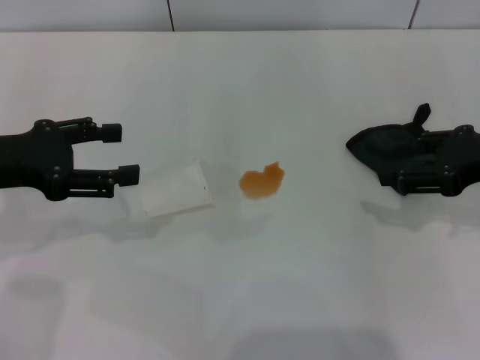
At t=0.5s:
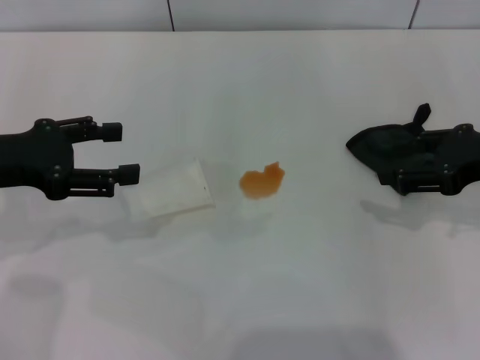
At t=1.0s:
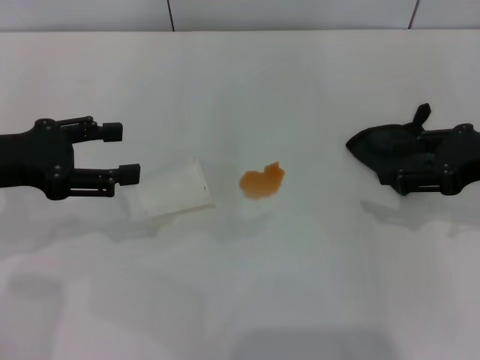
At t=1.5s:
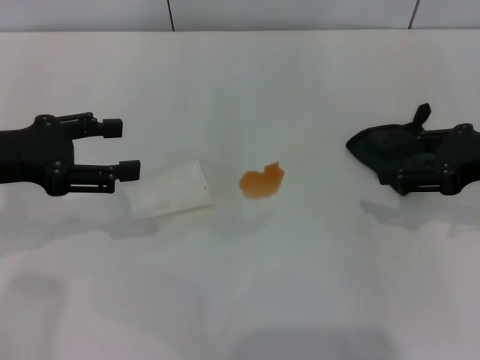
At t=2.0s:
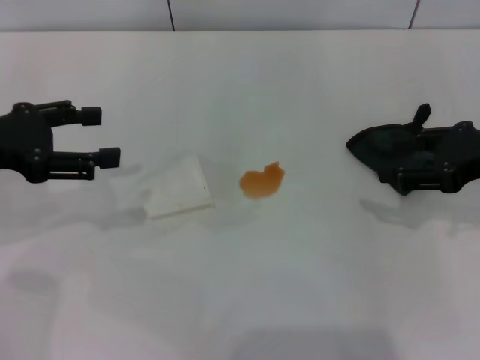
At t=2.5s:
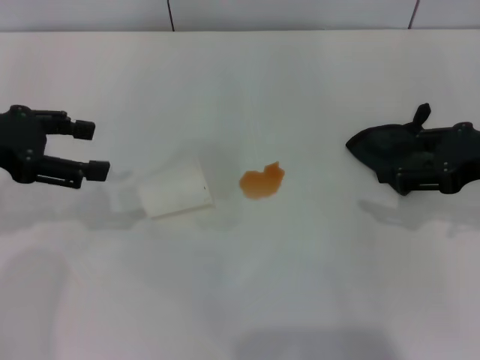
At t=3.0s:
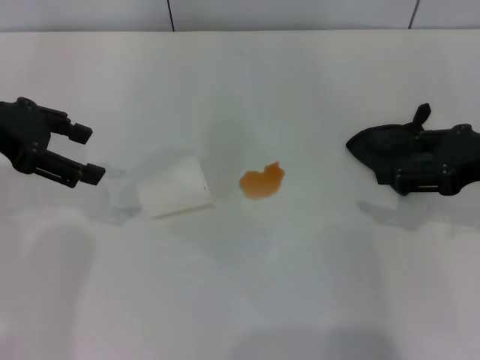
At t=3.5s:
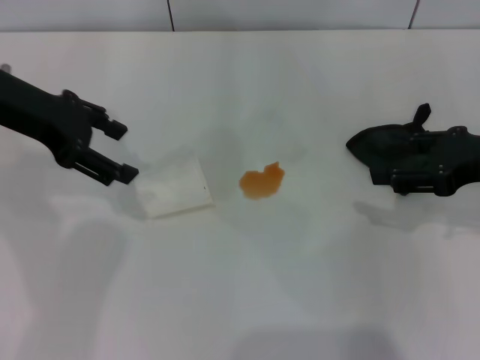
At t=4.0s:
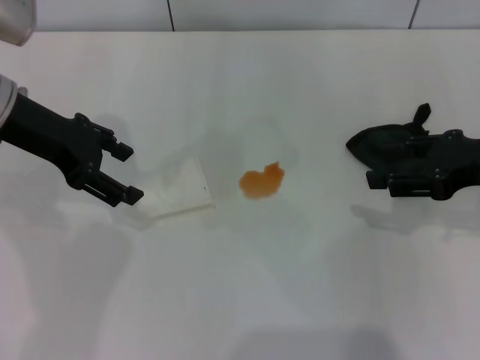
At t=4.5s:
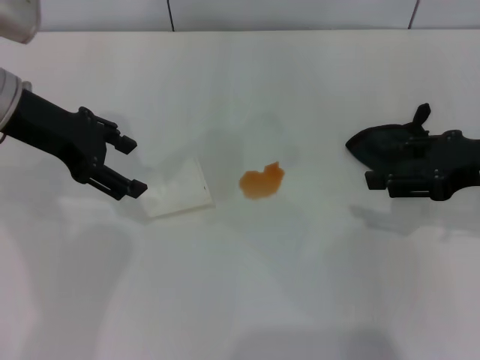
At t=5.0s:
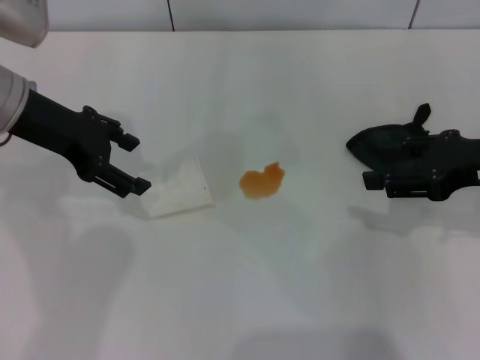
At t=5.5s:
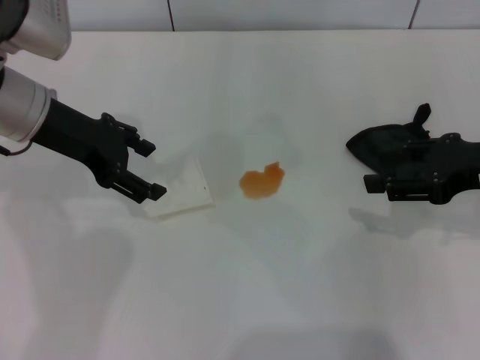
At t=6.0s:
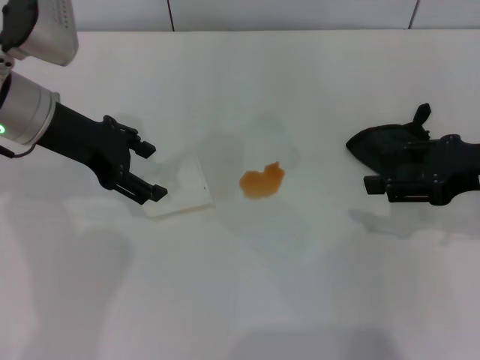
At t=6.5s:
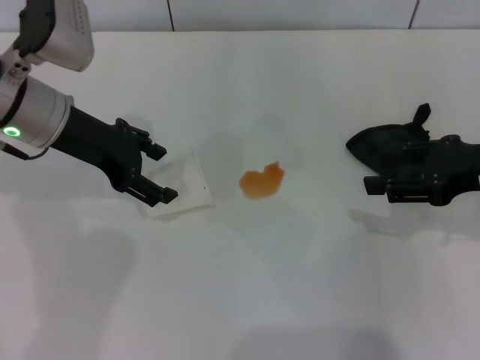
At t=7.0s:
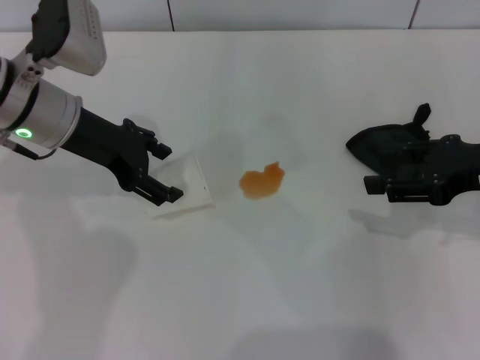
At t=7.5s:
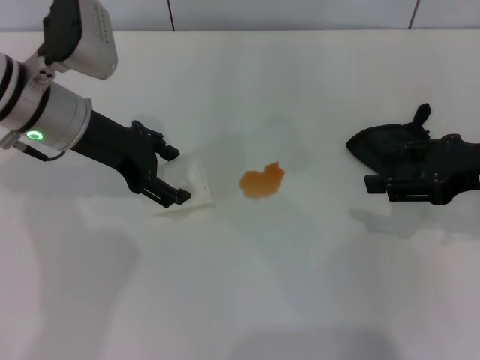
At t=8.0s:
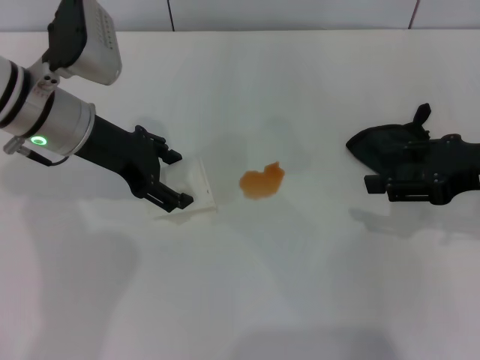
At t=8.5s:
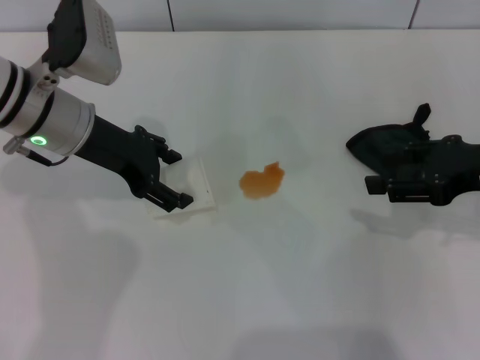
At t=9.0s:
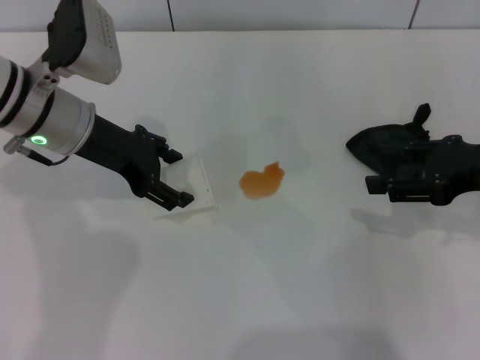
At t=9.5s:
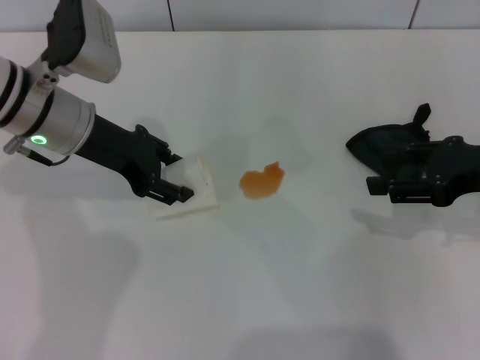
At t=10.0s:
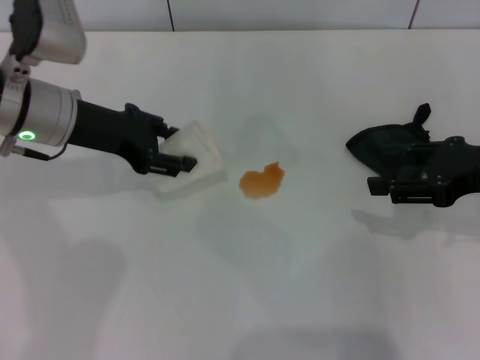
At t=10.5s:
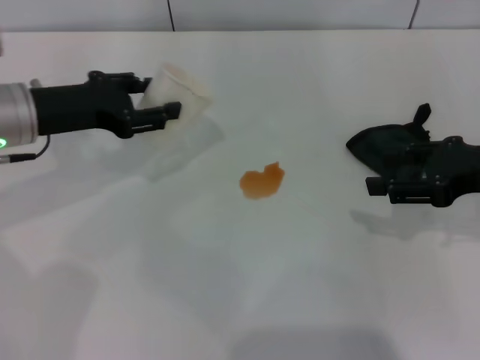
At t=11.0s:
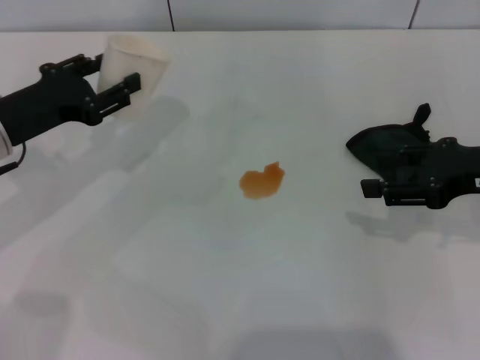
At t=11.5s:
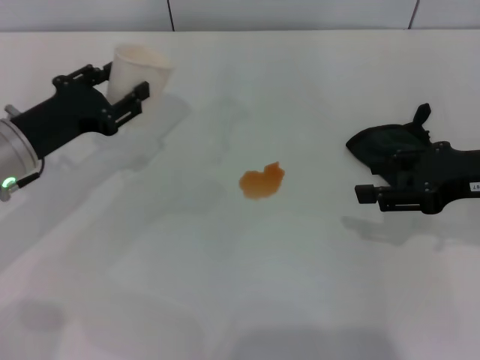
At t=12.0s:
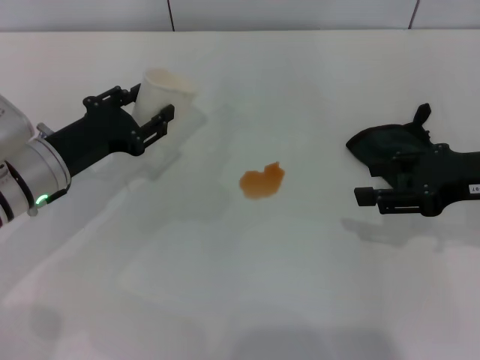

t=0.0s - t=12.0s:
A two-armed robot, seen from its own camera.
Step, t=0.0s - t=9.0s: Grasp the paper cup with the left gripper.
t=0.0s - t=2.0s: The grippers move only a little.
t=2.0s - t=4.0s: The left gripper shifts some 10 cm to the right and forward.
t=4.0s - t=6.0s: The grippers move only a little.
t=6.0s - t=8.0s: The grippers make only small movements.
t=8.0s - t=10.0s: The left gripper closes.
t=10.0s - t=12.0s: The left gripper goes about 10 cm downward and backward.

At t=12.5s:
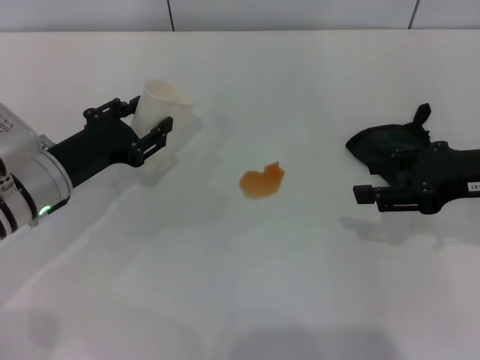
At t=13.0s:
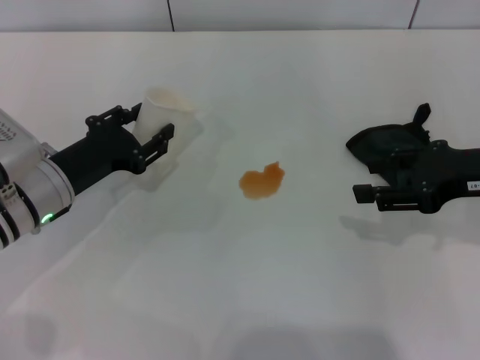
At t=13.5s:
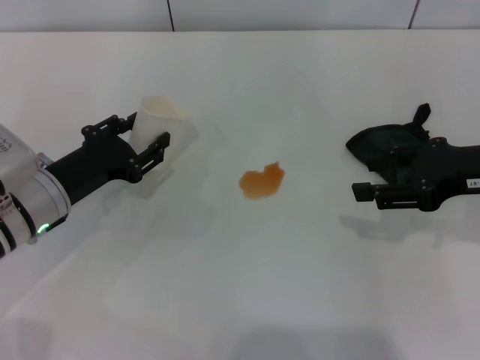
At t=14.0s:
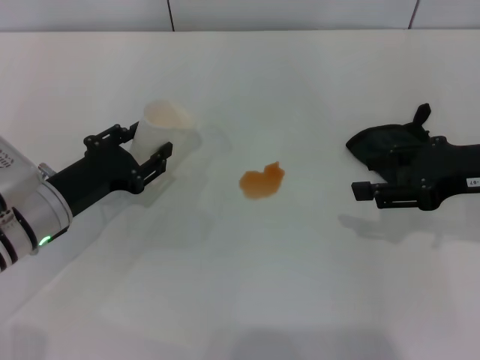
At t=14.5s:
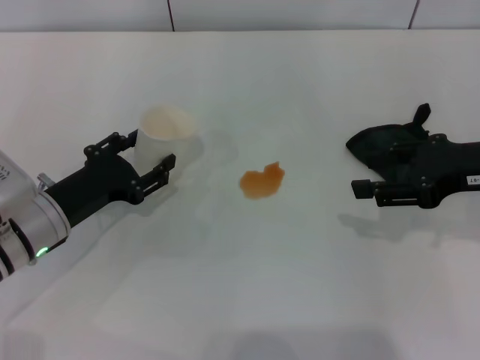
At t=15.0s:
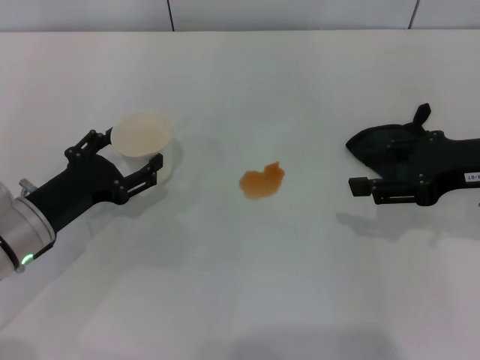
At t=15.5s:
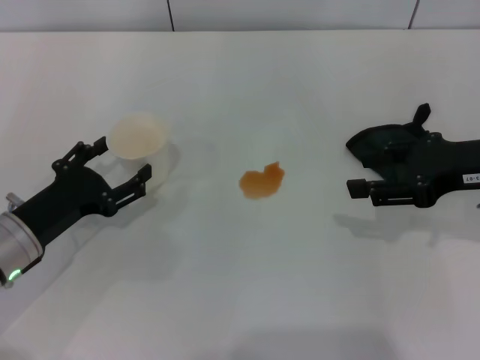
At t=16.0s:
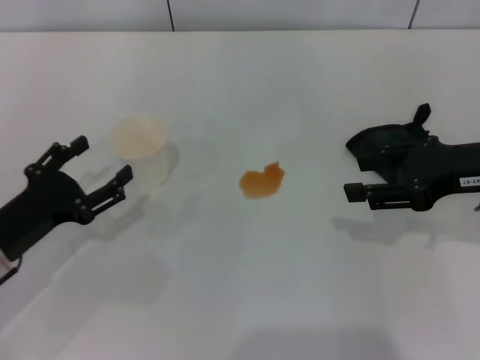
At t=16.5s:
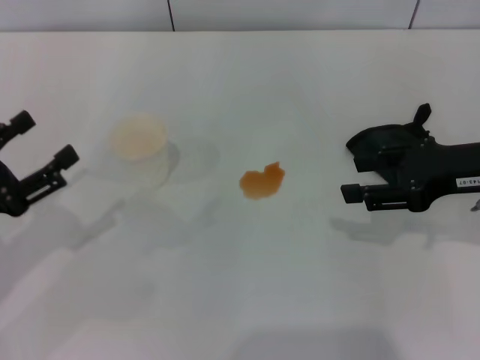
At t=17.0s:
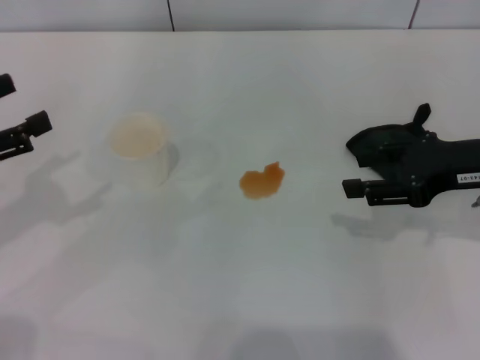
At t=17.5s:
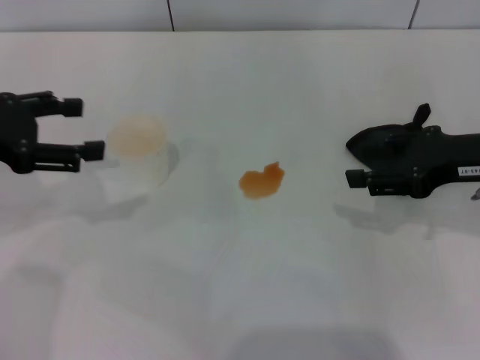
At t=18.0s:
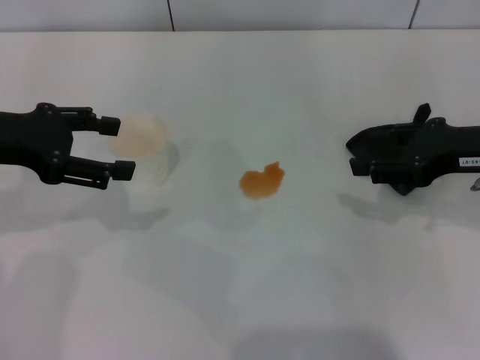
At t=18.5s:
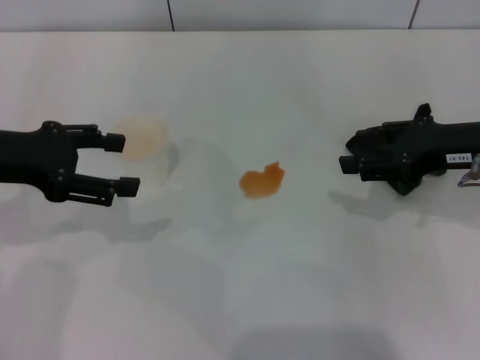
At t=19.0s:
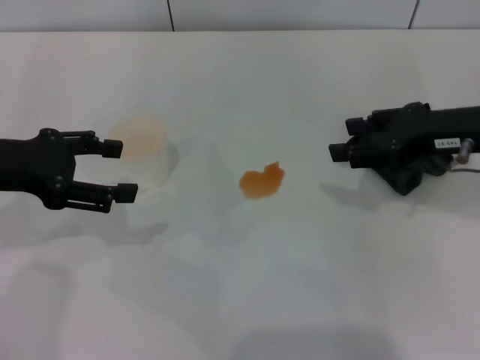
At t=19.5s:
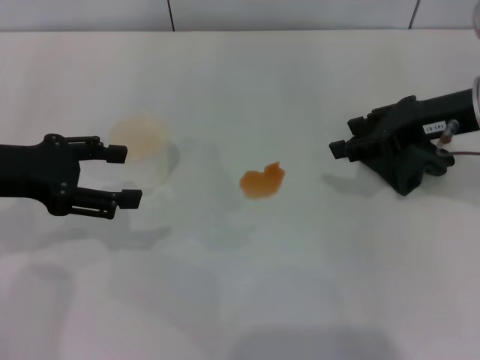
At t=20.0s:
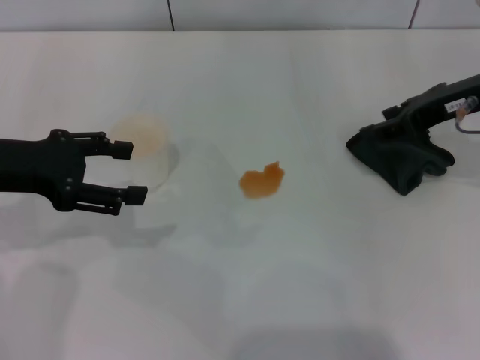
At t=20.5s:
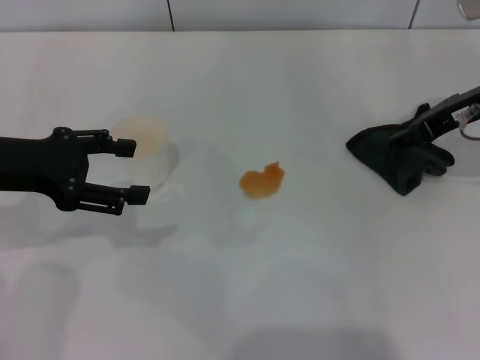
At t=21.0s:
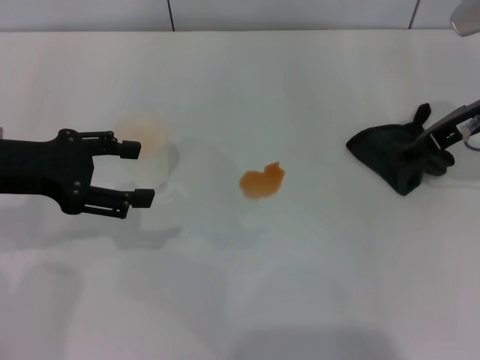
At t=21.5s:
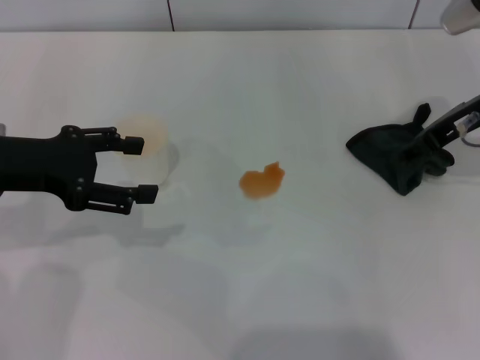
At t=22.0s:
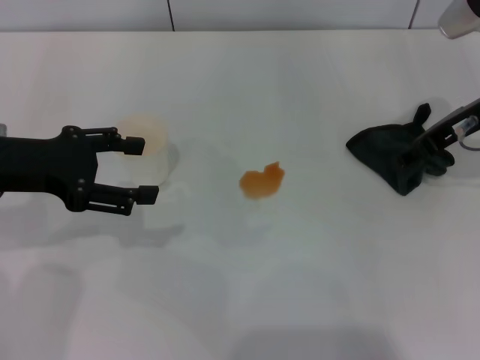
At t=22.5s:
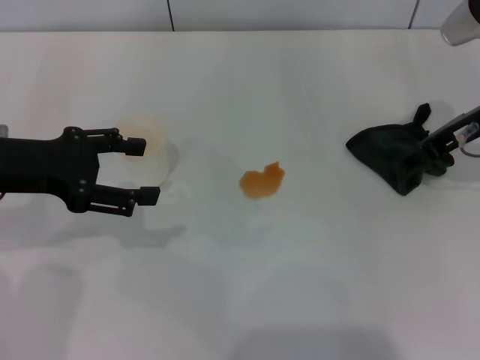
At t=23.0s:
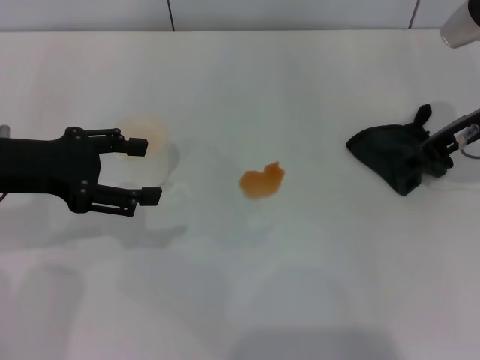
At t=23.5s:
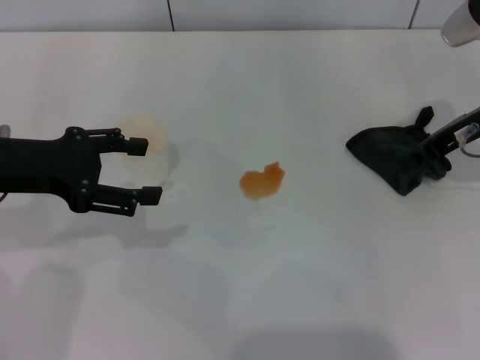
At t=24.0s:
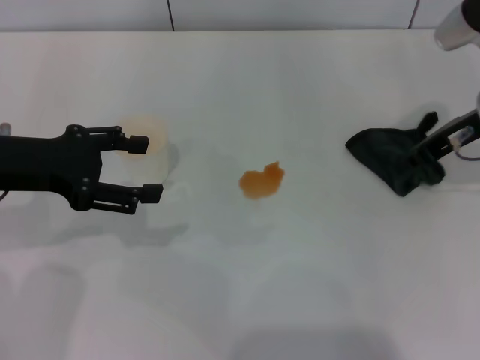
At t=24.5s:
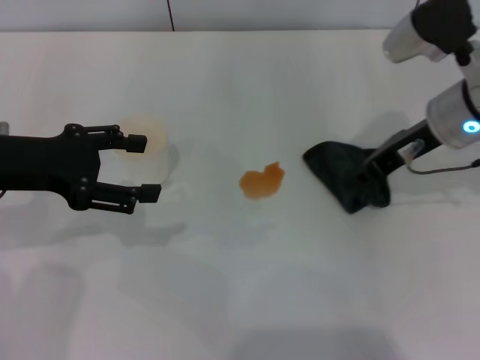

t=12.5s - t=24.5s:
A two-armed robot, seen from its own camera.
Step, t=12.5s - t=16.0s: Stand the paper cup upright with the left gripper.
Step, t=16.5s - t=24.0s: Grasp the rag with the right gripper.
t=12.5s - t=14.5s: The grippers move only a little.
t=14.5s - t=16.5s: The left gripper goes approximately 10 cm to the left, backward and upward, and opens.
t=16.5s - t=18.5s: The left gripper is displaced forward and upward by approximately 10 cm.
t=18.5s - t=20.5s: The right gripper moves forward, some 5 cm.
t=20.5s - t=22.5s: The grippers move only a little.
t=22.5s - t=24.5s: The right gripper shifts about 5 cm to the left, and closes its fingers.

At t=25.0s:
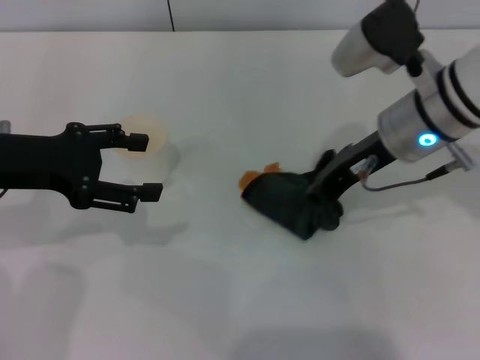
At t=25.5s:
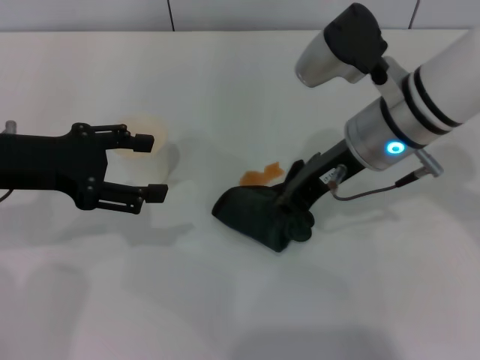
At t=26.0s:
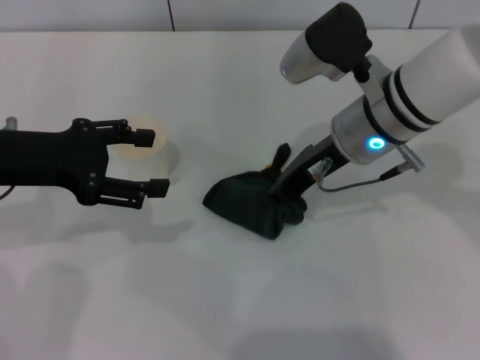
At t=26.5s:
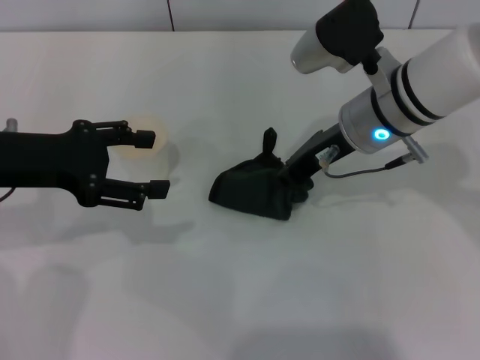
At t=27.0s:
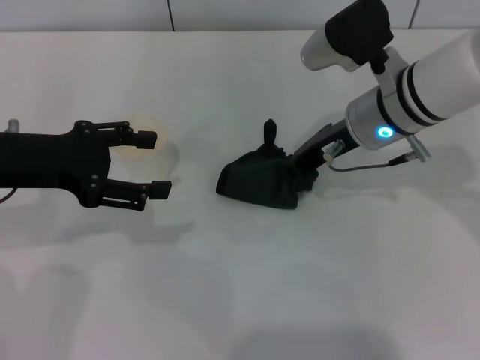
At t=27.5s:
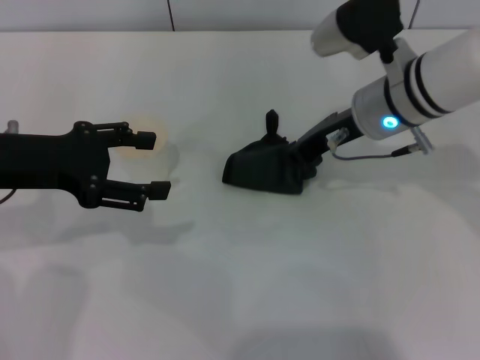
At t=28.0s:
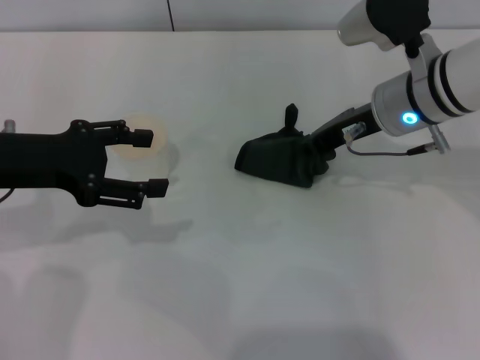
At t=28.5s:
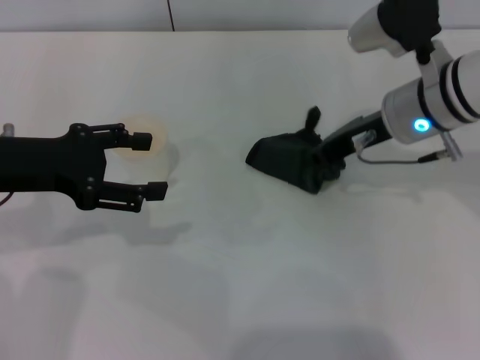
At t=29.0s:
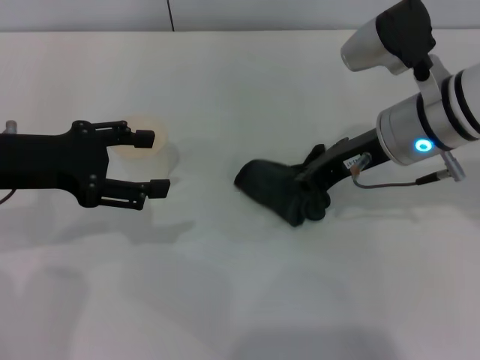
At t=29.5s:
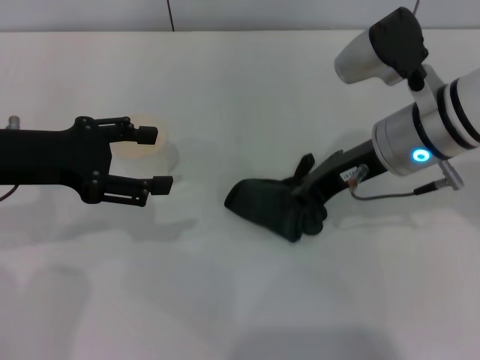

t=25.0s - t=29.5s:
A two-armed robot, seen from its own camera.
t=25.0s - t=29.5s: The grippers move only a little.
